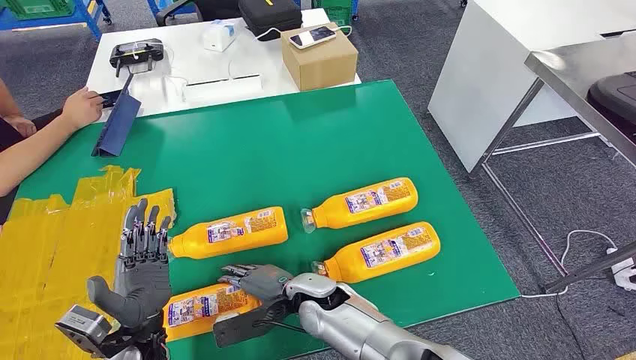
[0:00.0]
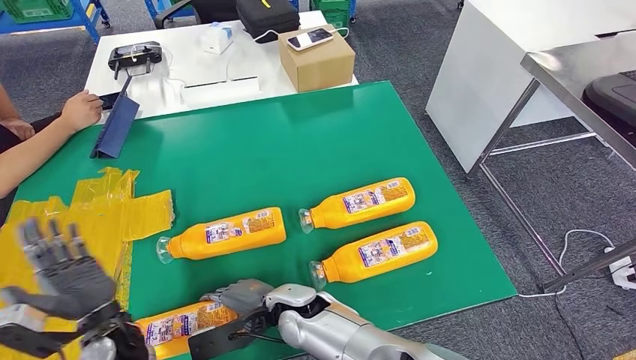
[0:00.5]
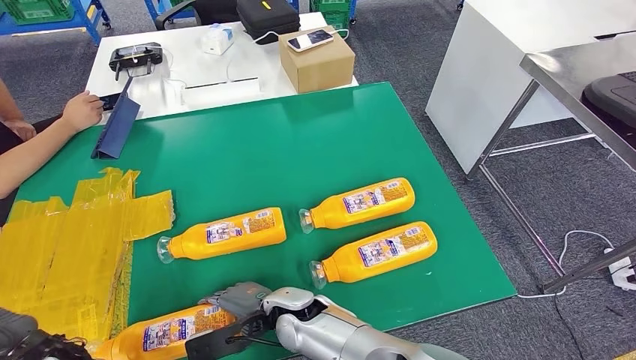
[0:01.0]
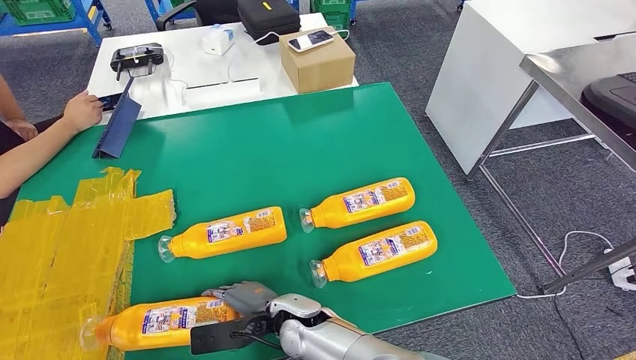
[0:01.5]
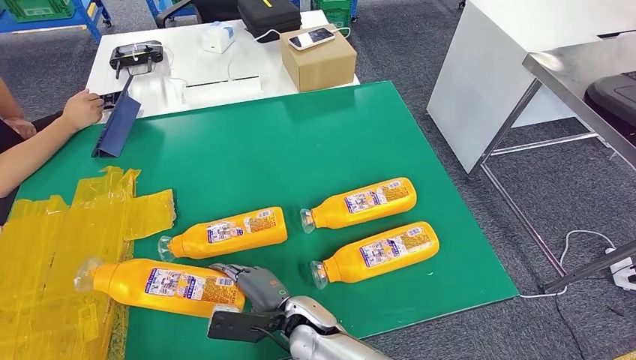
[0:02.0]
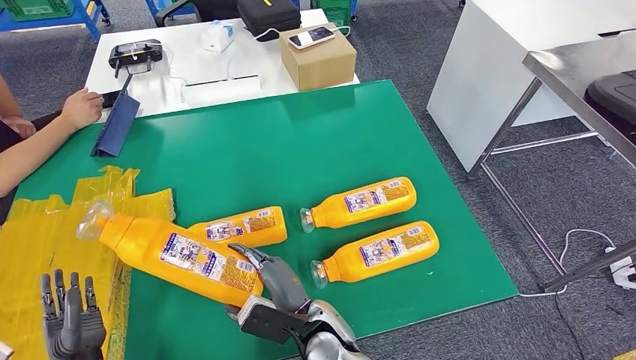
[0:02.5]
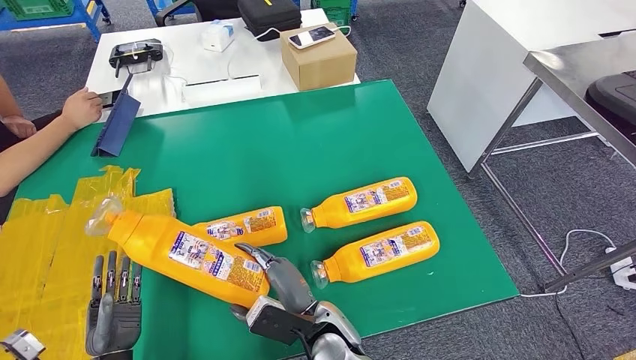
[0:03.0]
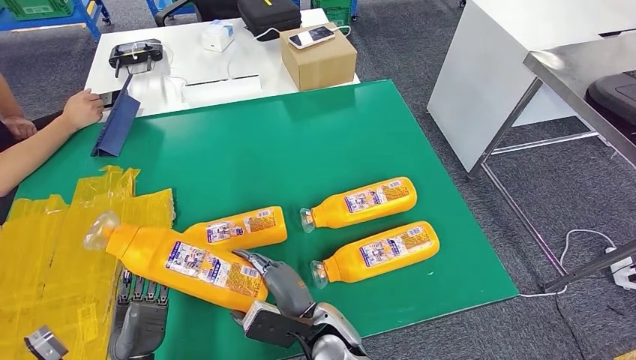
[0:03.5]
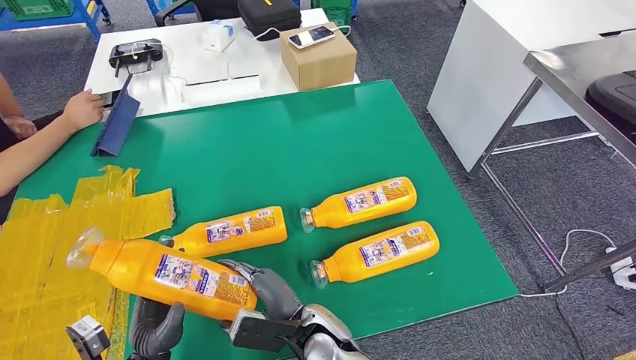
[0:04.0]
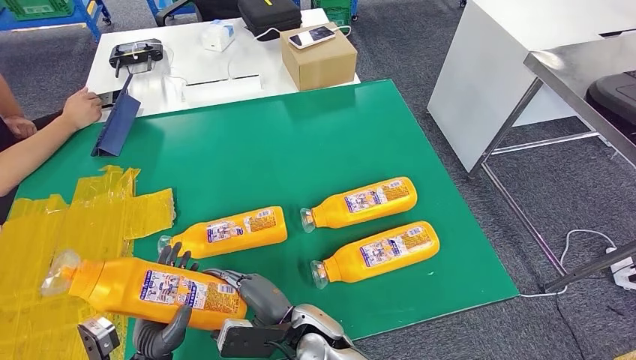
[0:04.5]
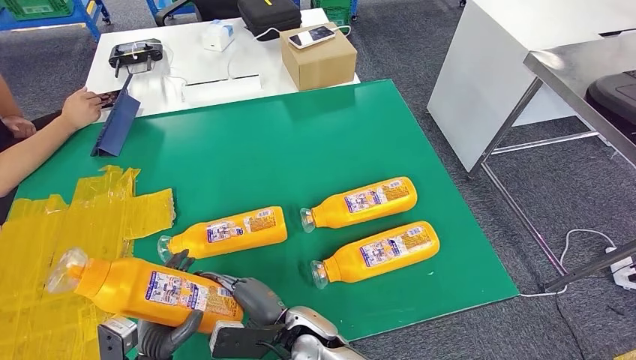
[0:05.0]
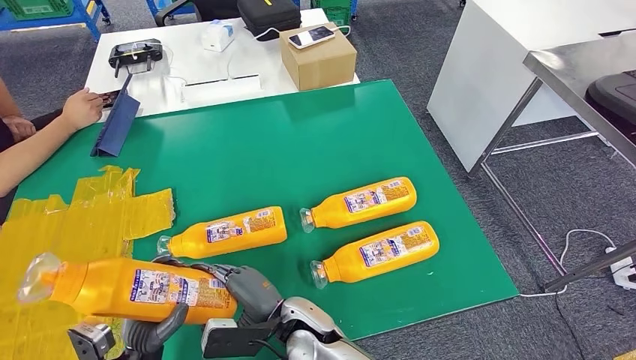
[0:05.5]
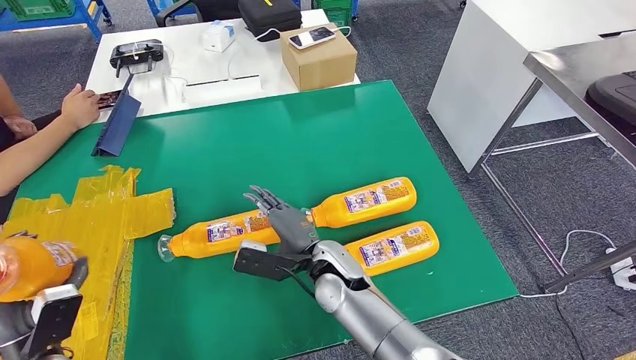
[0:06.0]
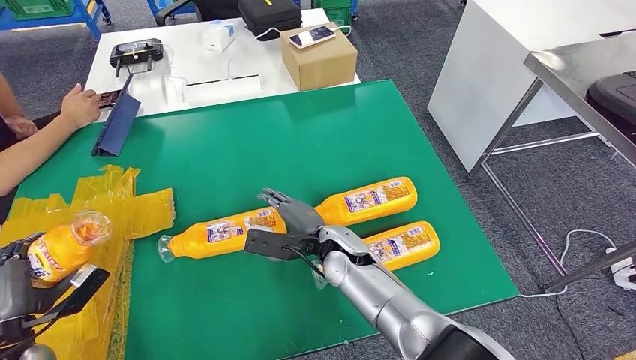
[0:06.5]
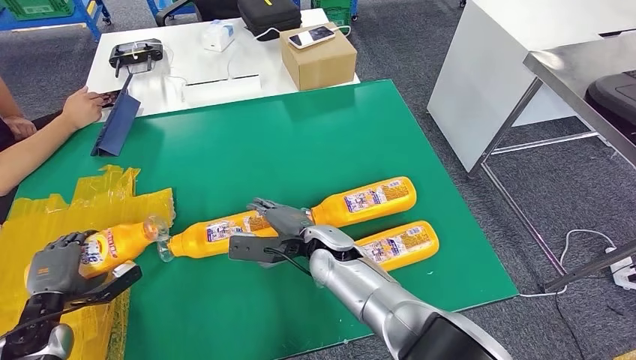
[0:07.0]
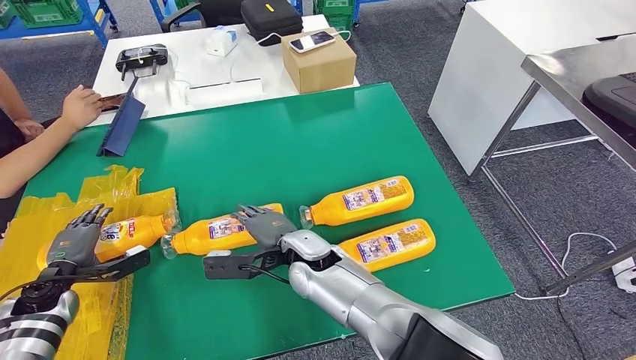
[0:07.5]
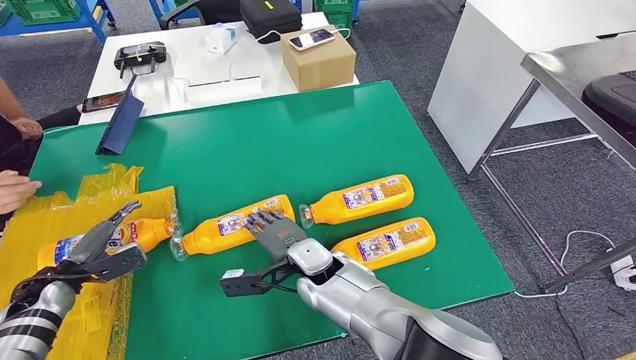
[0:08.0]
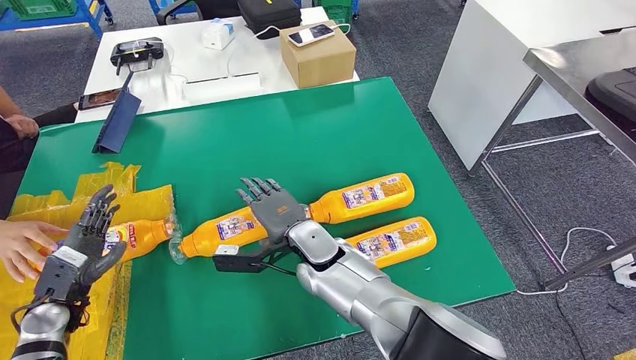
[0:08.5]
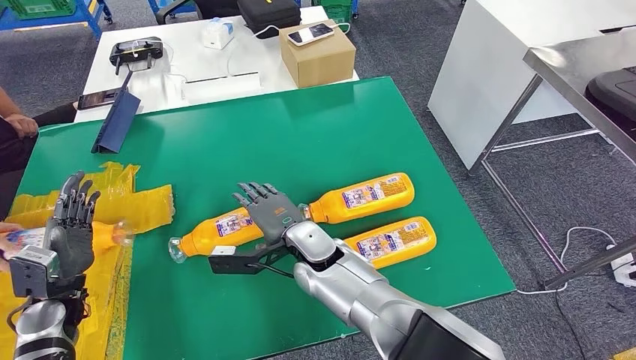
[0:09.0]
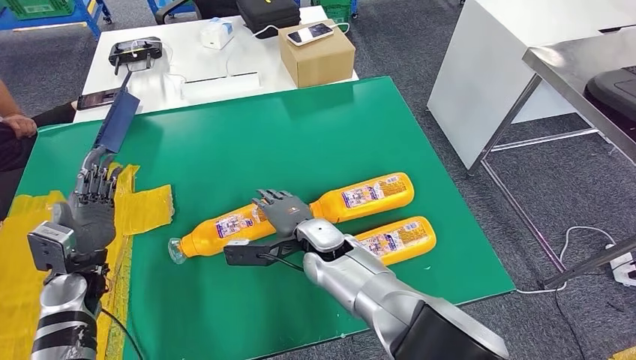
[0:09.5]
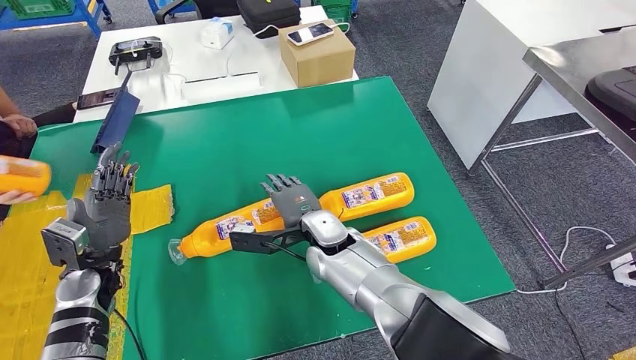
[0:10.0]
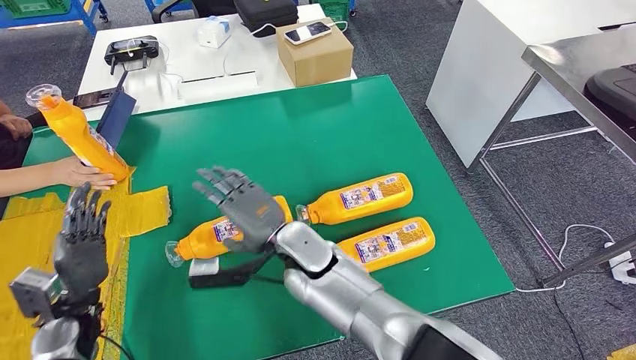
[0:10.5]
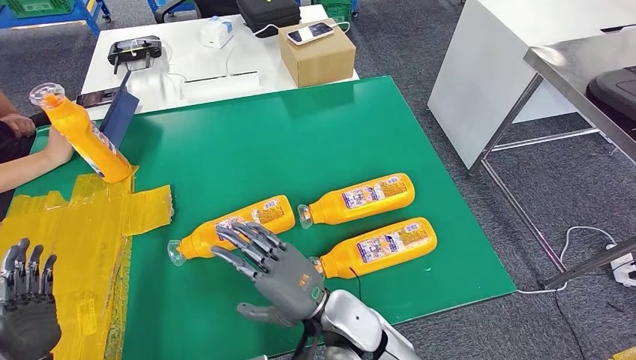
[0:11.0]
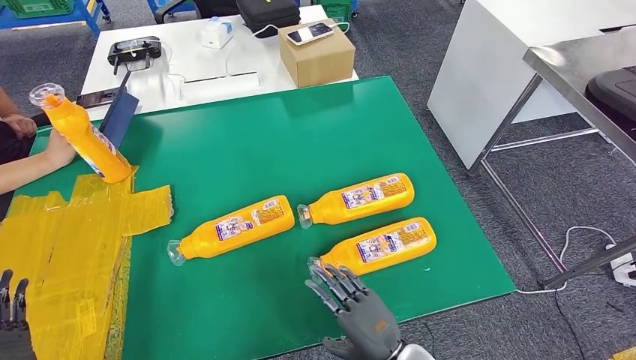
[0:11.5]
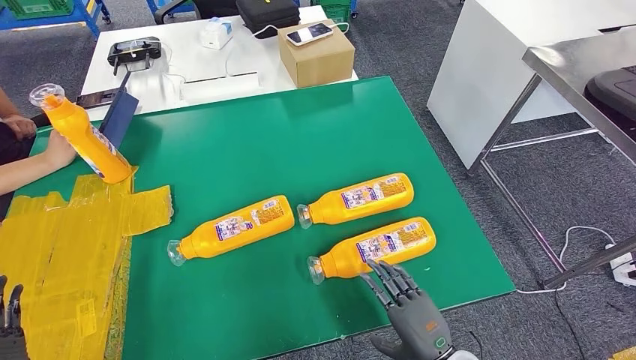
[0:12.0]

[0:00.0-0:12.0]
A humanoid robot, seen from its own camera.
Step, 0:00.0 to 0:03.0: Take the fast-moving consumer goods bottle from the table.
Step, 0:03.5 to 0:07.5: Flip the fast-moving consumer goods bottle to the front side.
0:02.0 to 0:04.0: The left hand is displaced to the right by some 15 cm.
0:04.0 to 0:06.0: The right hand goes roughly 10 cm forward and upward. The left hand travels to the left by approximately 15 cm.
0:10.0 to 0:12.0: The left hand heads backward, covering roughly 20 cm; the right hand moves backward and to the right, roughly 30 cm.

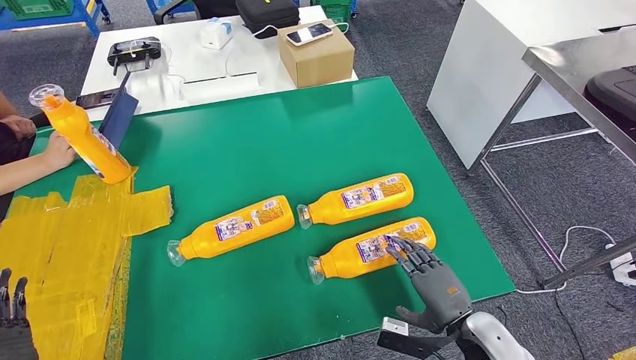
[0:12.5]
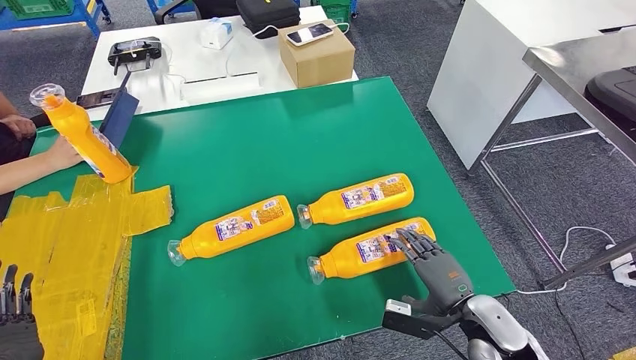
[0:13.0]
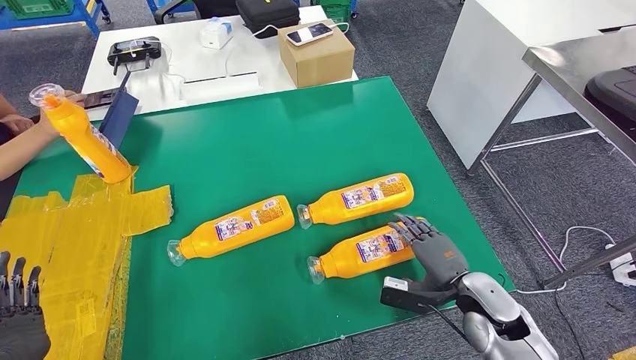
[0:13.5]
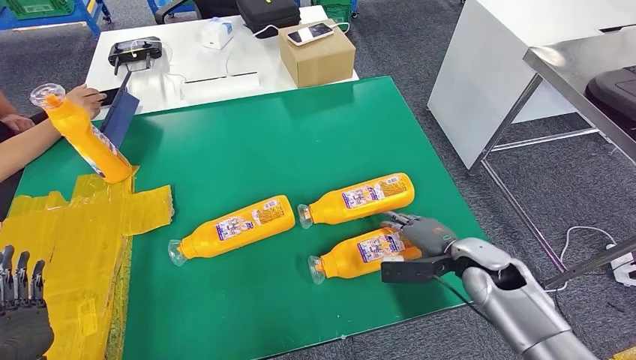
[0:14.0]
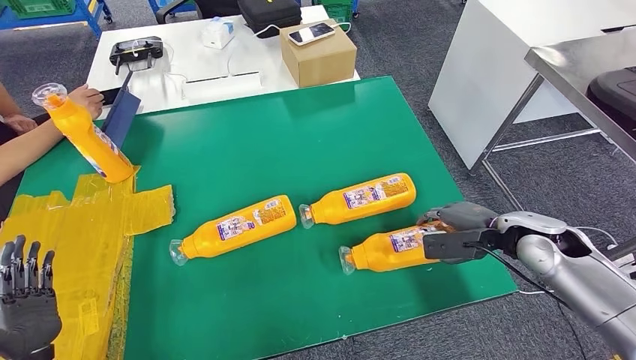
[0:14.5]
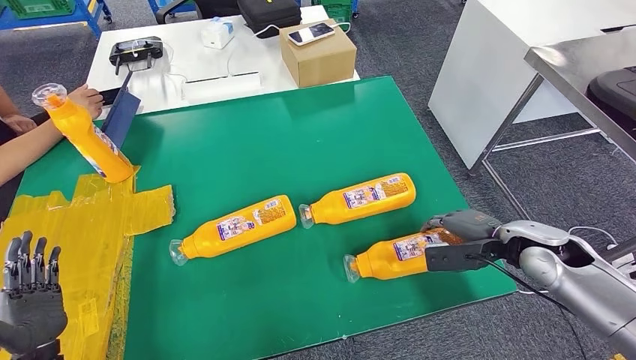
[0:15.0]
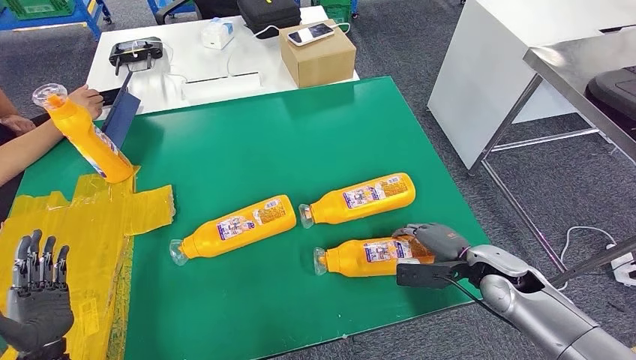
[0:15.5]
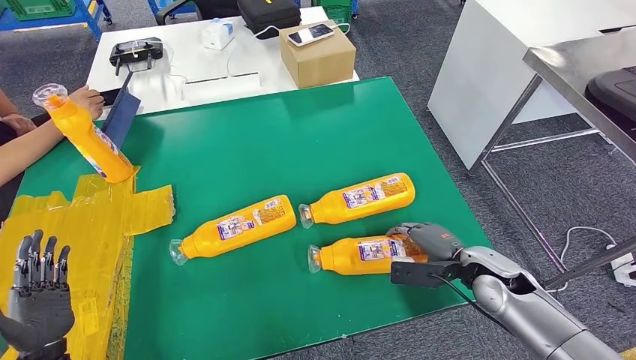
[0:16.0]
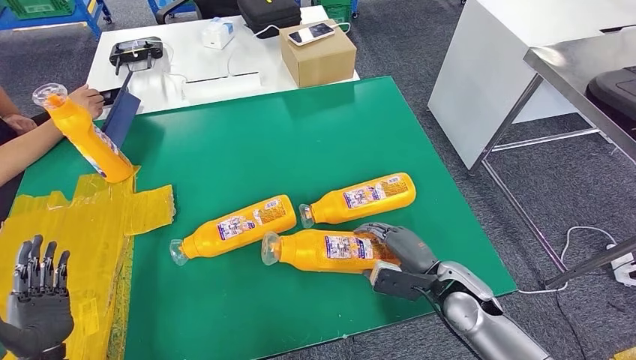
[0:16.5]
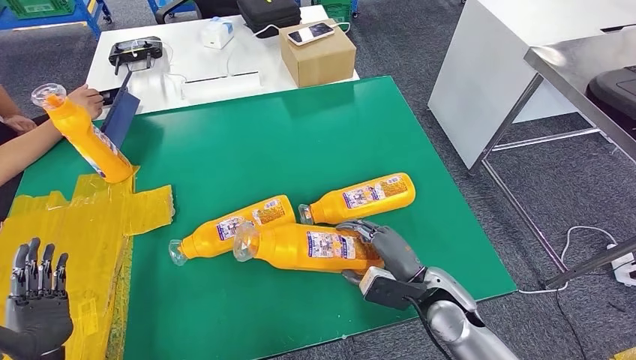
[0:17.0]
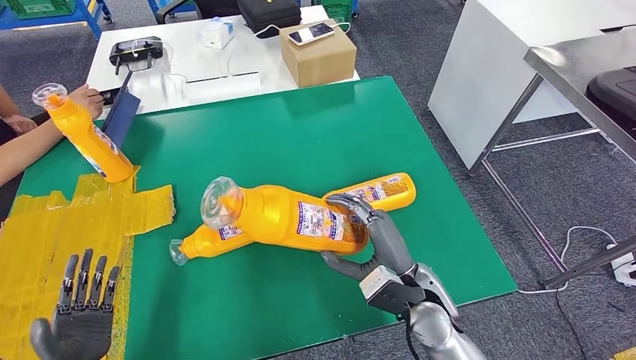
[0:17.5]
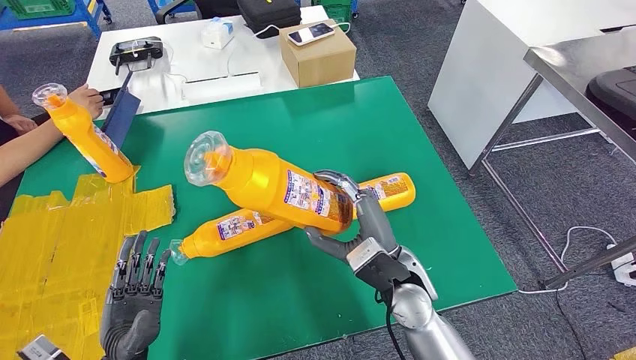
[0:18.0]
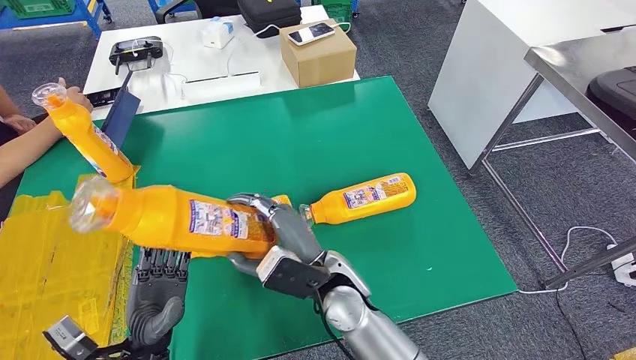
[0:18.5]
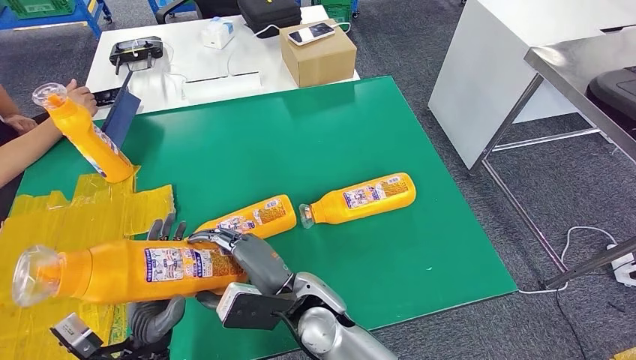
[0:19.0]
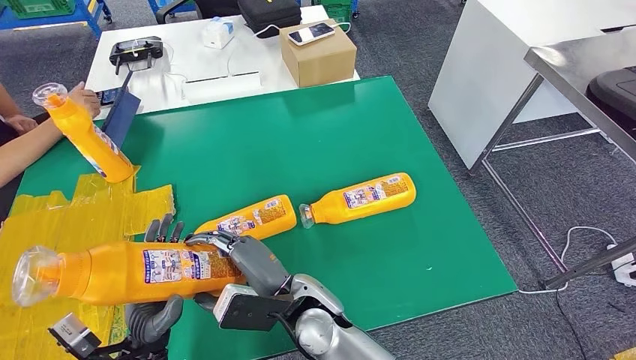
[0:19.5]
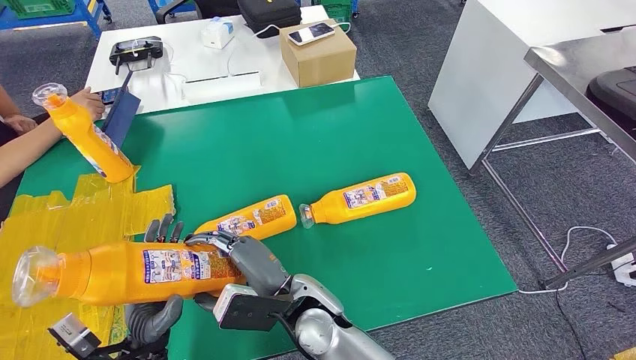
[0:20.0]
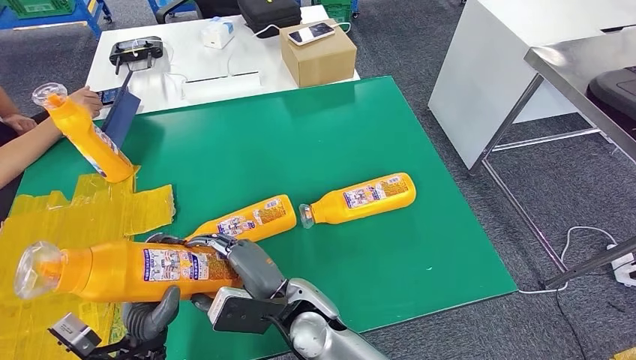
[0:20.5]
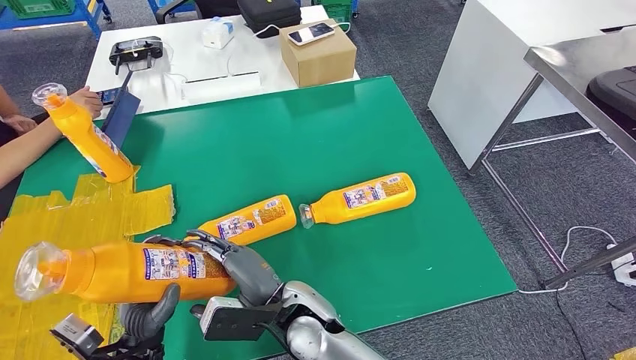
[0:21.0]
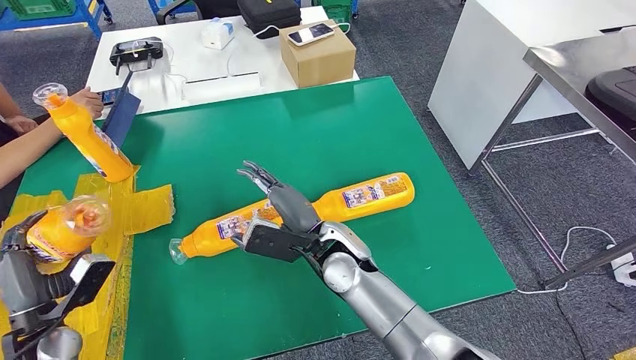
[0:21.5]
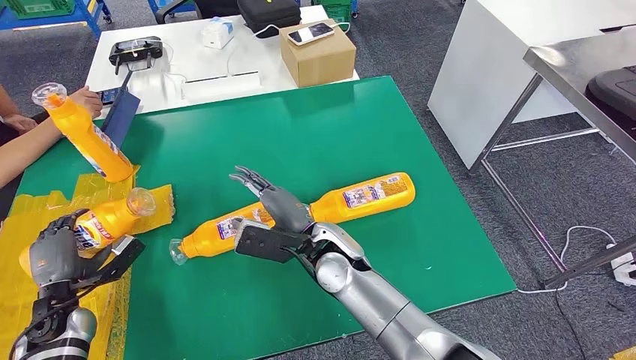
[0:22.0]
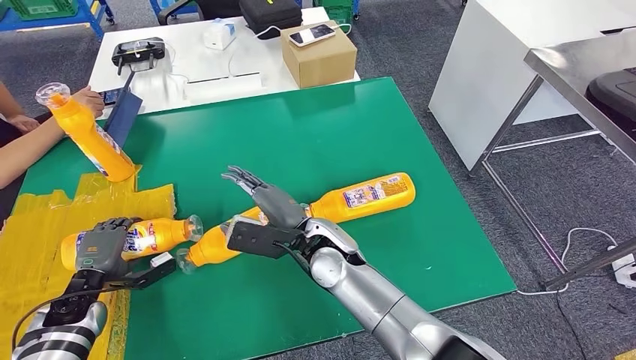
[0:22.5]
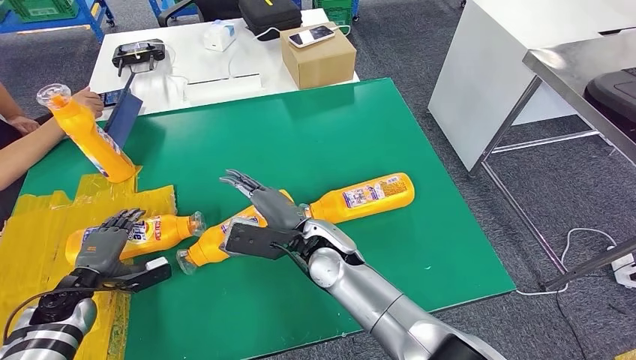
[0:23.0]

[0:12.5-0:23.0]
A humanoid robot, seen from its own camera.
Step, 0:13.5 to 0:17.0: Pick up the fast-moving consumer goods bottle from the table.
0:12.5 to 0:14.5: The right hand is displaced forward, upward and to the right by approximately 20 cm, while the left hand shifts by some 5 cm.
0:14.5 to 0:16.5: The right hand heads to the left, downward and backward, covering some 15 cm.
0:16.5 to 0:19.0: The left hand shifts roughly 15 cm to the right, while the right hand heads to the left, covering some 25 cm.
0:19.0 to 0:21.0: The hands move only a little.
